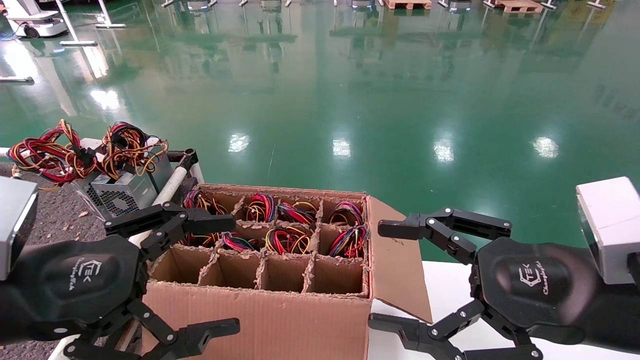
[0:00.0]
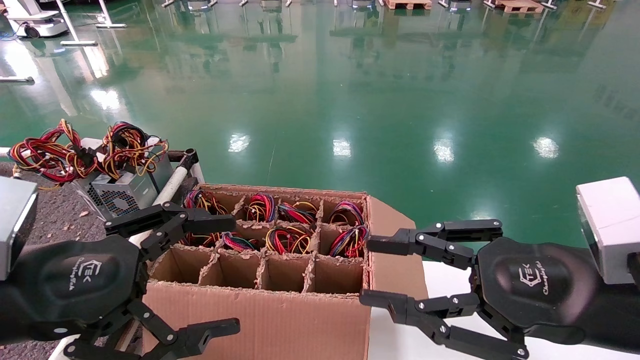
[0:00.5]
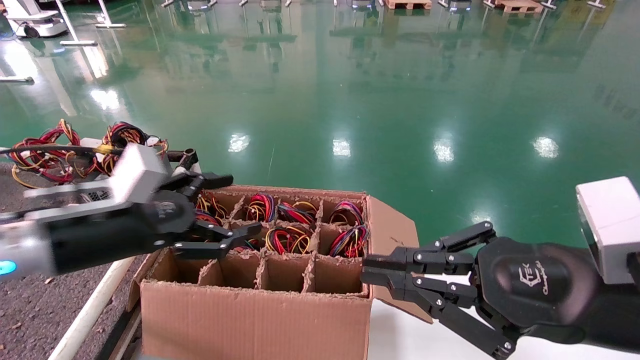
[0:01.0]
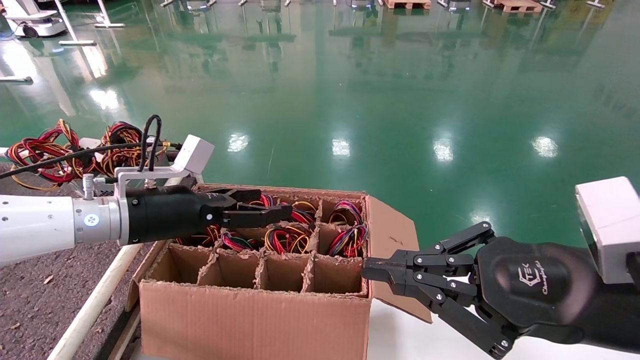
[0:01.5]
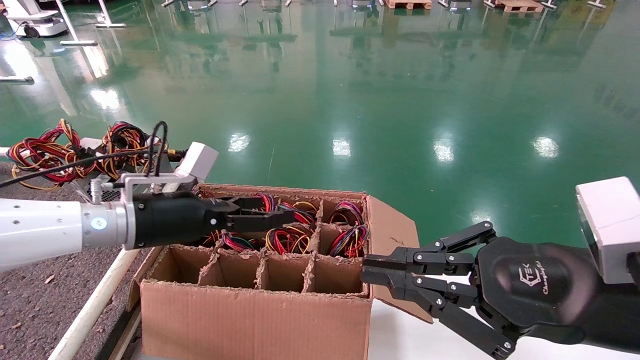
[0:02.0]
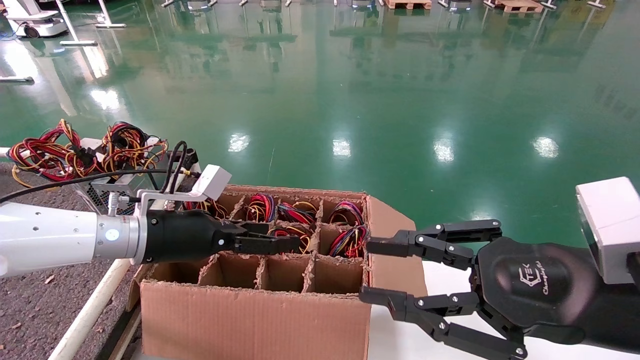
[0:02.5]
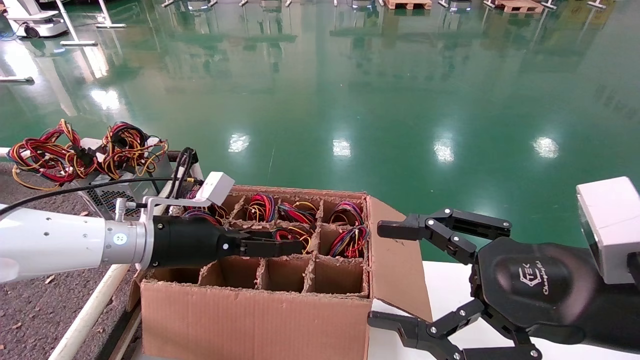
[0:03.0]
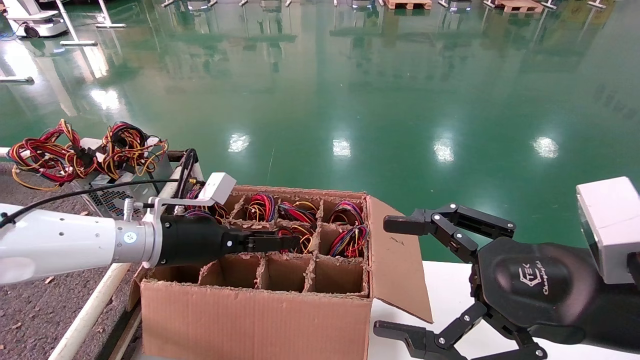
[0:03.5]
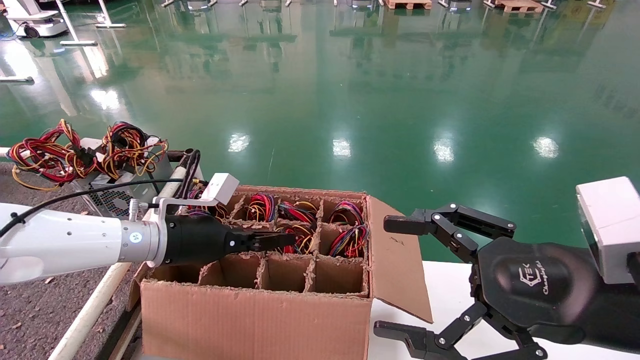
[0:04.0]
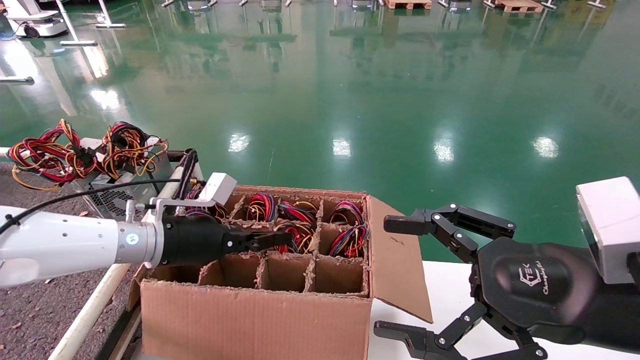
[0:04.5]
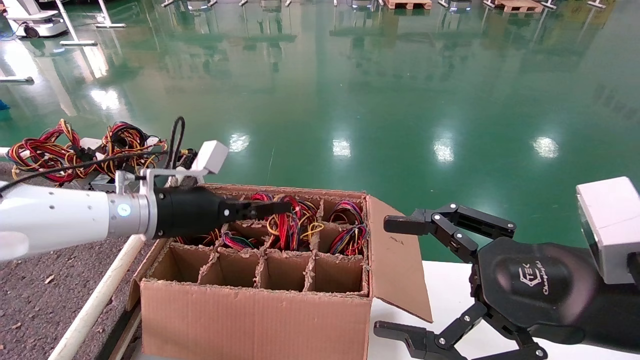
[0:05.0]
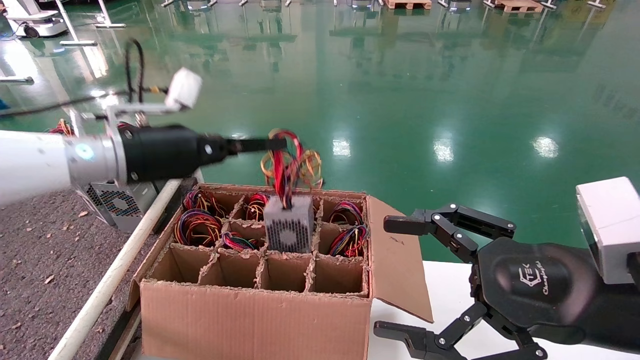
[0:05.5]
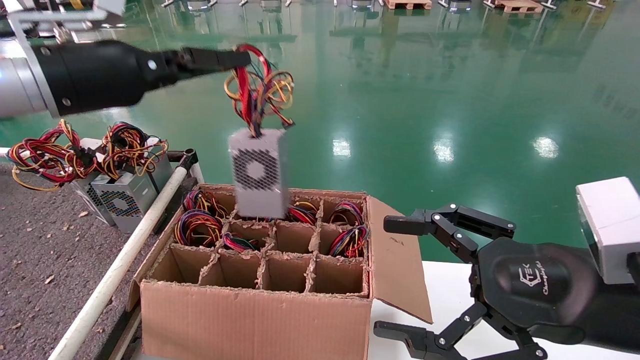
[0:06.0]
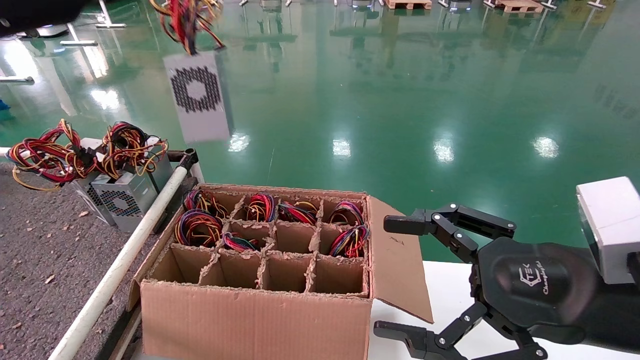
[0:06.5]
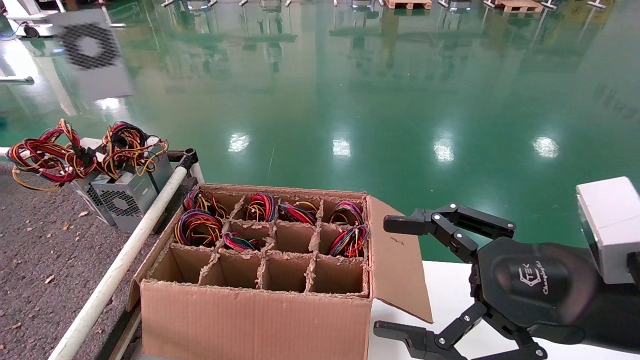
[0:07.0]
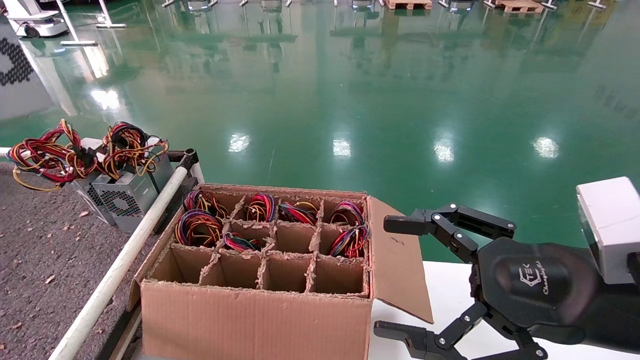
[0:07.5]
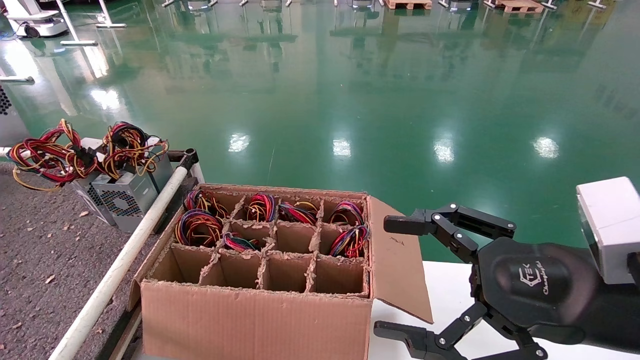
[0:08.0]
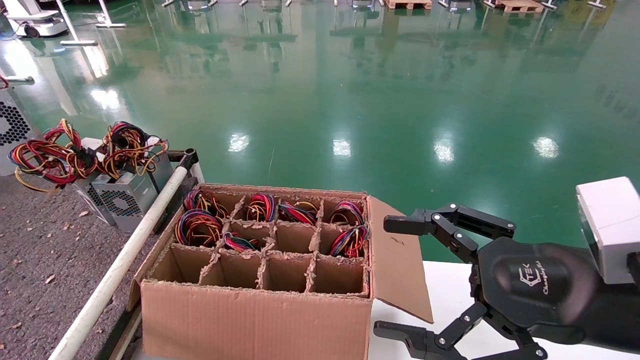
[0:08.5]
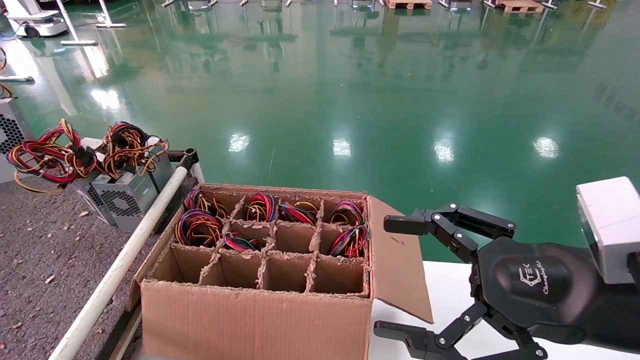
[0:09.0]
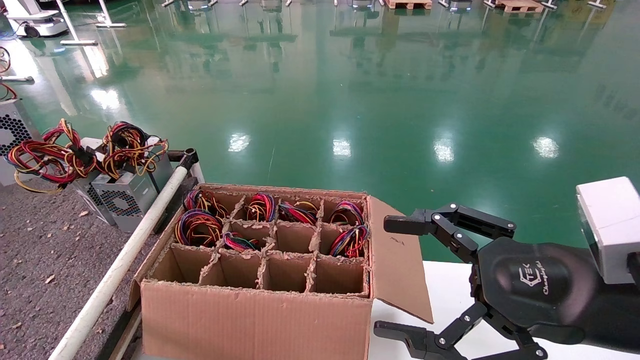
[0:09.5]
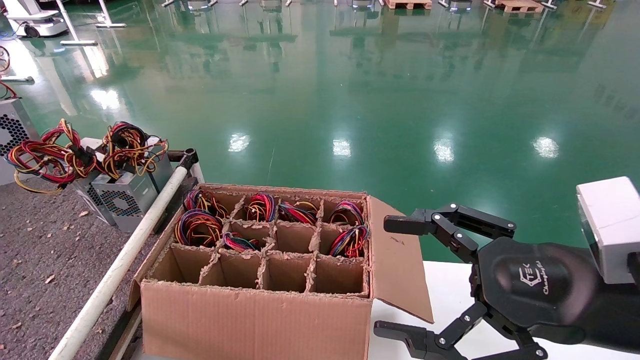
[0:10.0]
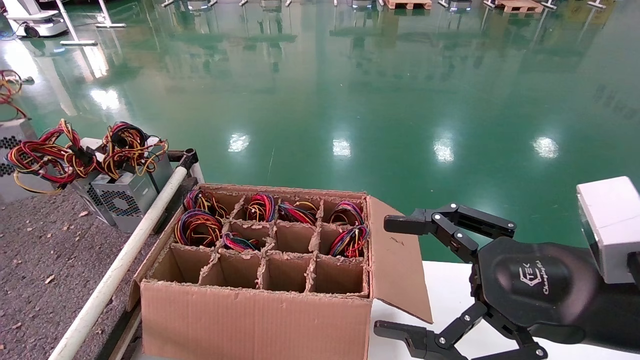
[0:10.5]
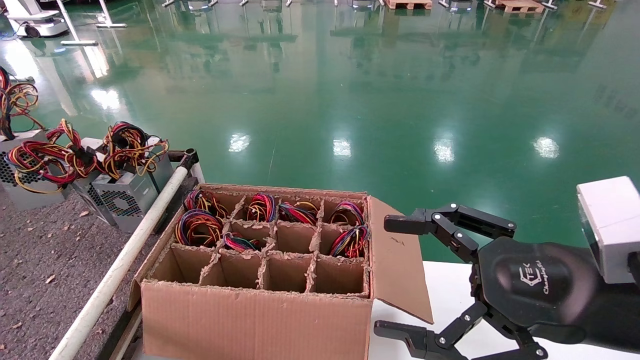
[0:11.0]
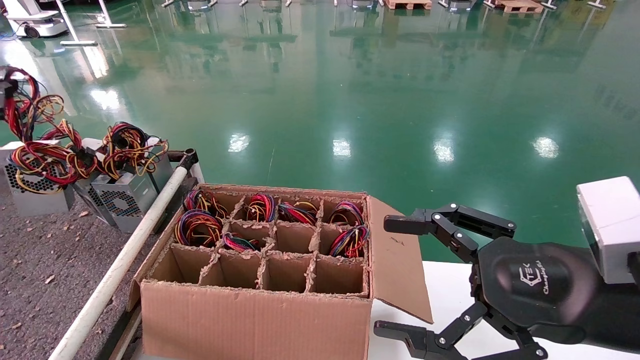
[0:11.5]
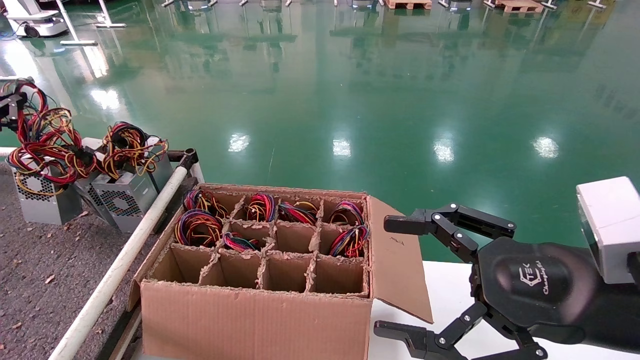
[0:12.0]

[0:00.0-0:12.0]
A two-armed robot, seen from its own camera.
Step, 0:01.5 to 0:05.0: Grab and lift the power supply from the large box.
0:00.0 to 0:02.0: The right gripper closes its fingers. The left gripper heads forward, covering approximately 20 cm.
0:02.0 to 0:04.0: The left gripper closes its fingers, while the right gripper opens up.
0:04.0 to 0:06.0: The left gripper shifts about 20 cm upward.
0:06.0 to 0:08.0: The left gripper shifts approximately 25 cm to the left.
0:08.0 to 0:10.0: The left gripper shifts roughly 5 cm downward.
0:10.0 to 0:12.0: The left gripper heads downward, covering some 10 cm.

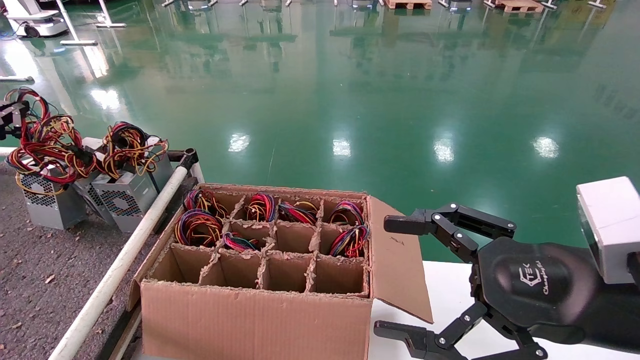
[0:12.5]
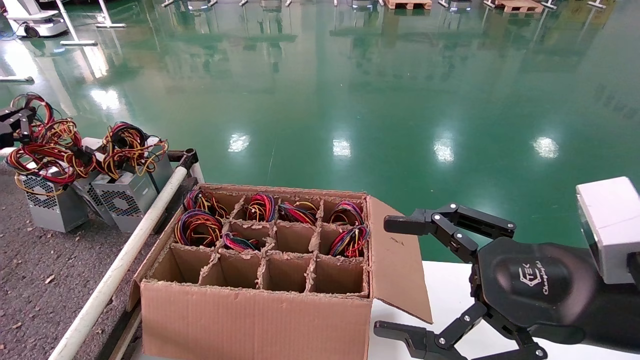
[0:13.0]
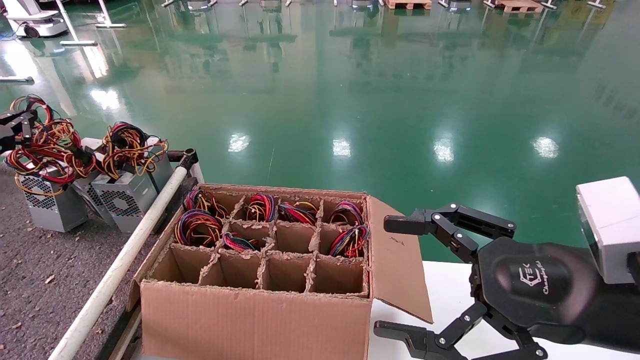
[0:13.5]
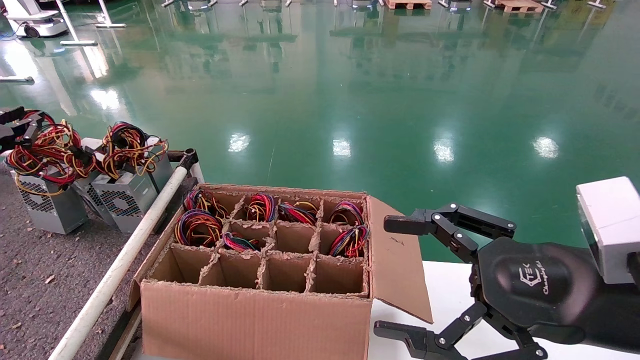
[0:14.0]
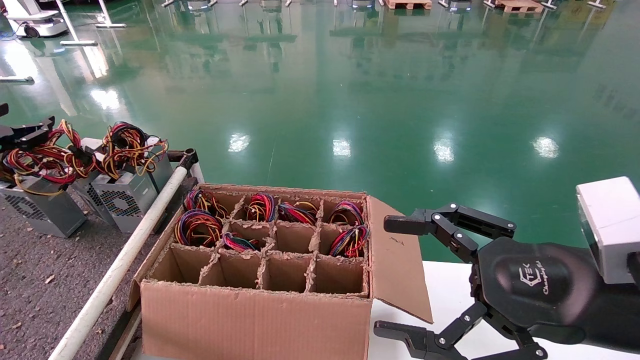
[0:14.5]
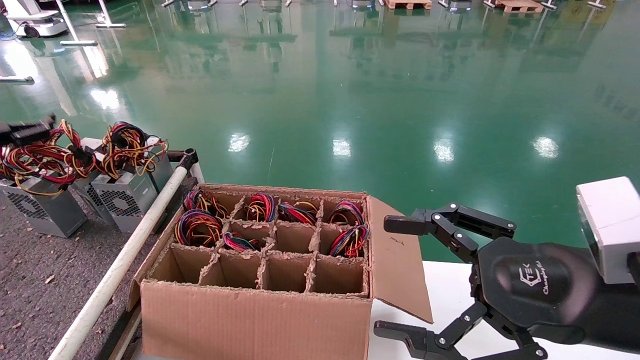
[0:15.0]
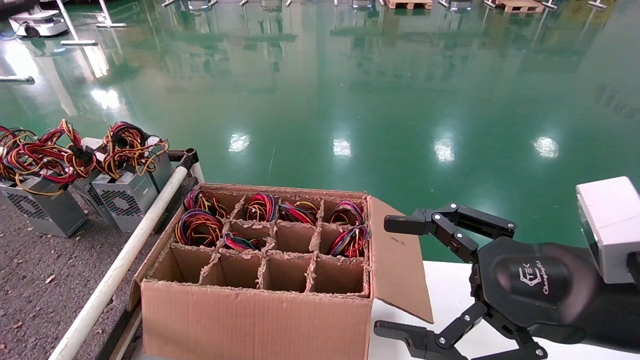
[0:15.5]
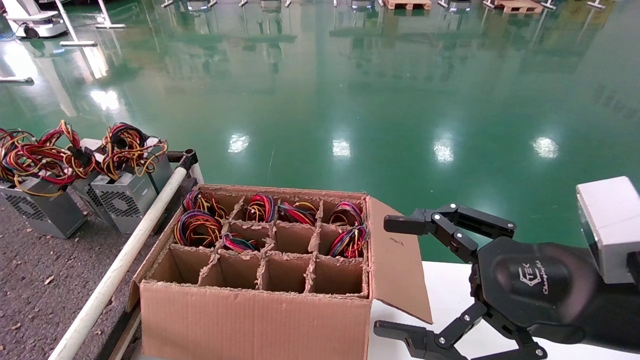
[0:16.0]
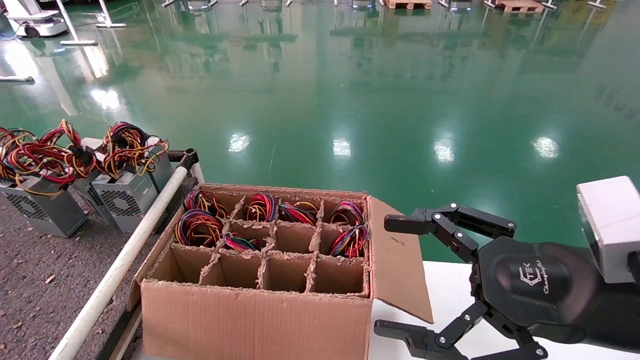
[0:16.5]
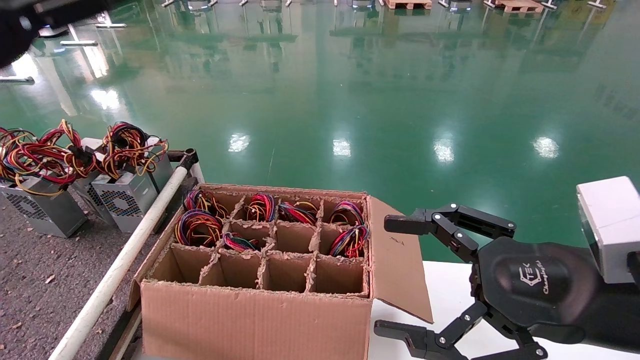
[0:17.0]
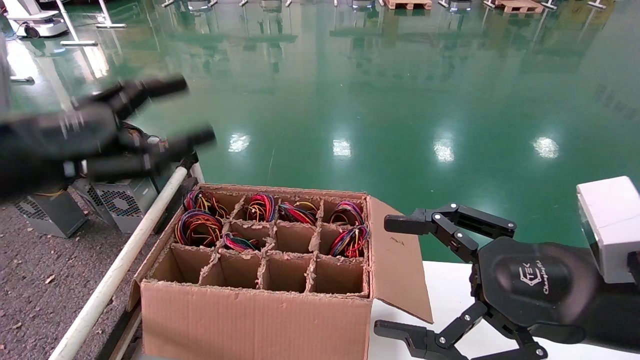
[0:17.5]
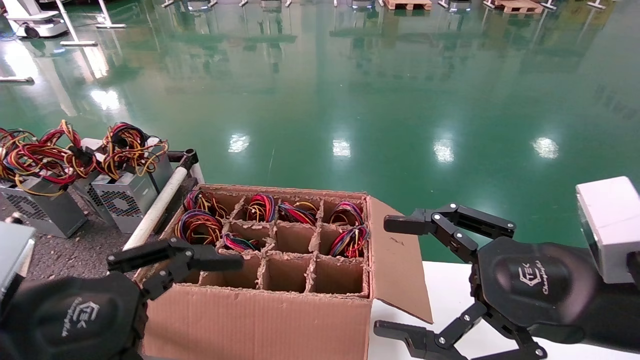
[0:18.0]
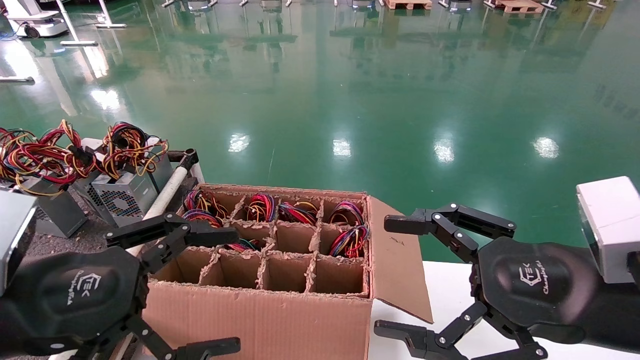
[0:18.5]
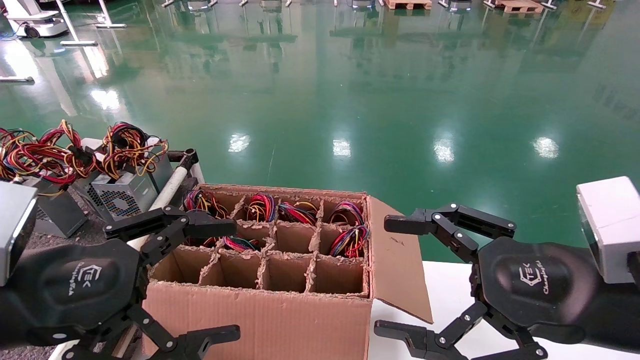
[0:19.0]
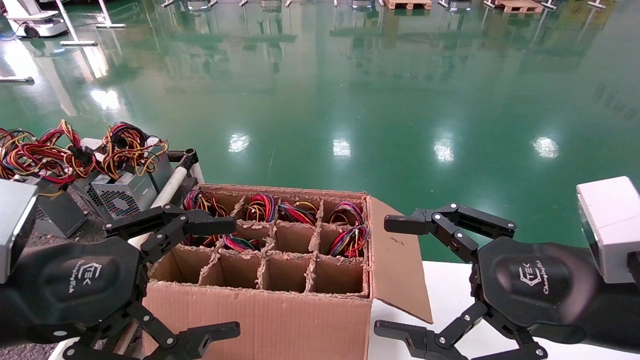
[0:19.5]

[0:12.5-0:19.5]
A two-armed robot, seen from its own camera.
Step, 0:12.5 to 0:14.5: Place the power supply on the operating table.
0:12.5 to 0:14.5: The left gripper opens up.
0:14.5 to 0:16.0: The left gripper travels upward by approximately 25 cm, and opens.
0:16.0 to 0:17.5: The left gripper moves downward, to the right and backward, approximately 30 cm.
0:17.5 to 0:19.5: The left gripper moves downward and backward, roughly 10 cm.
